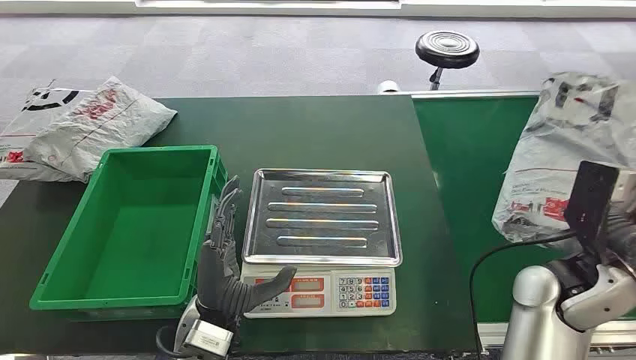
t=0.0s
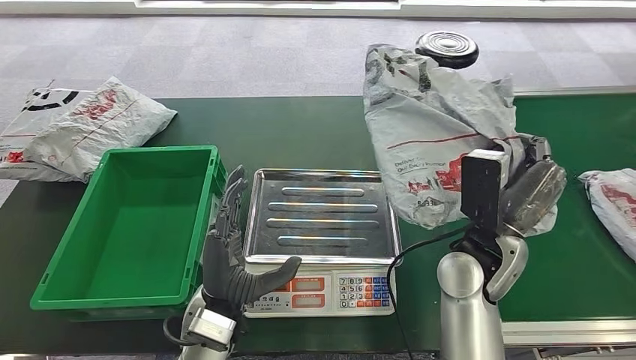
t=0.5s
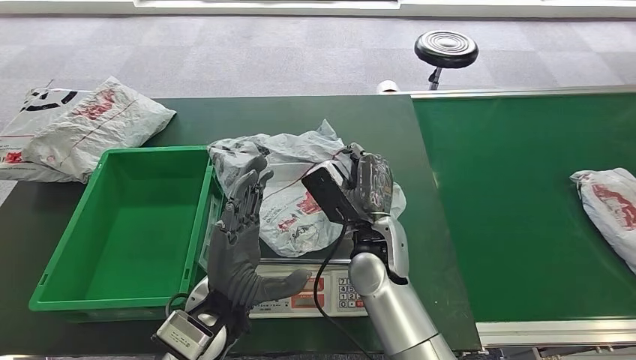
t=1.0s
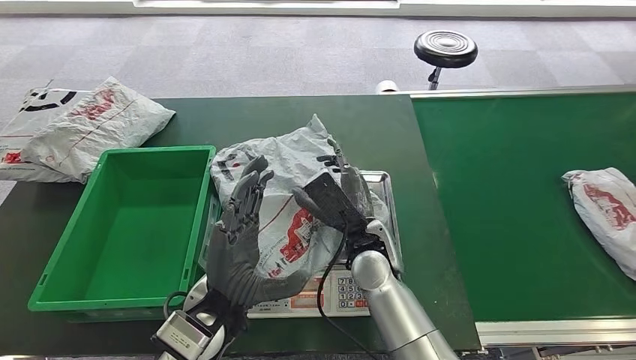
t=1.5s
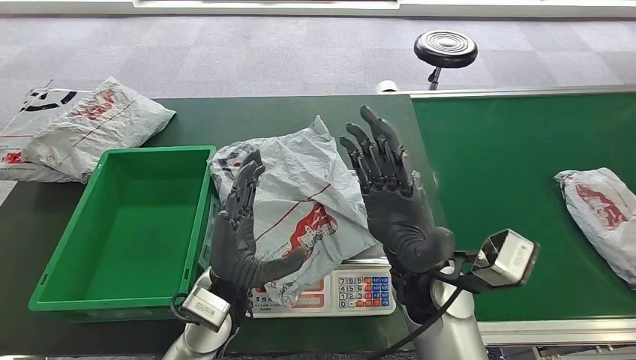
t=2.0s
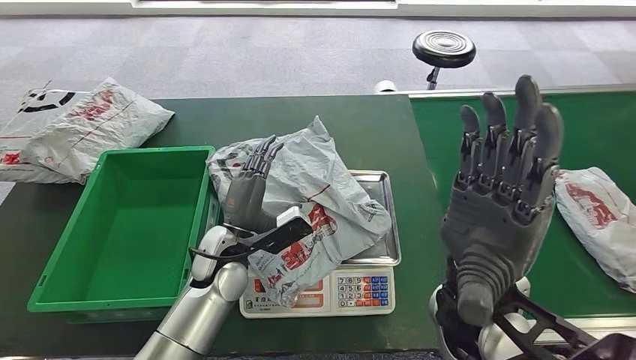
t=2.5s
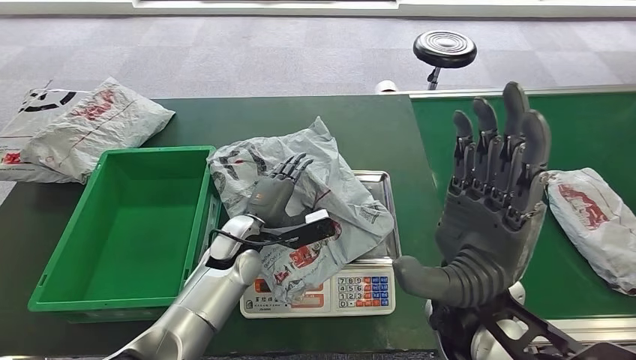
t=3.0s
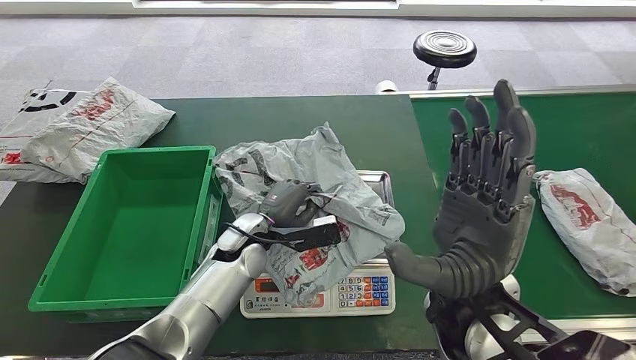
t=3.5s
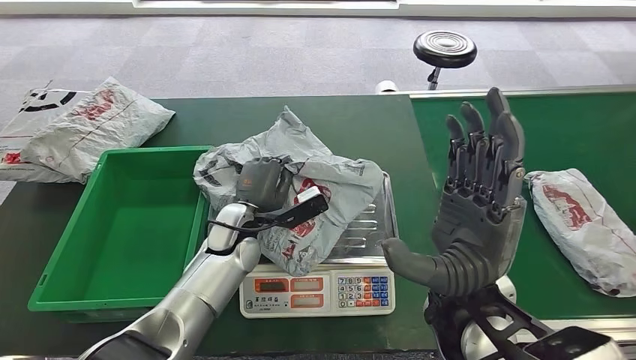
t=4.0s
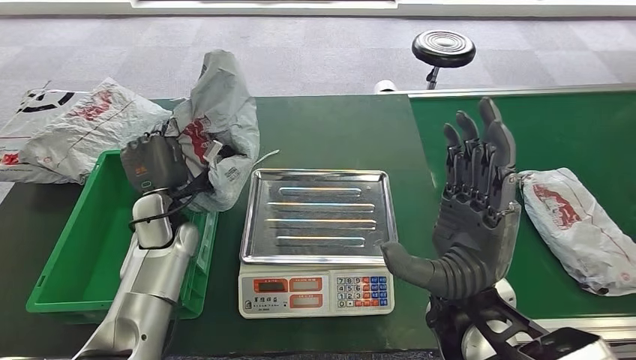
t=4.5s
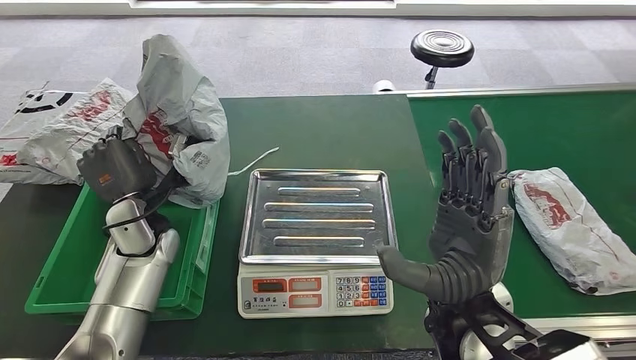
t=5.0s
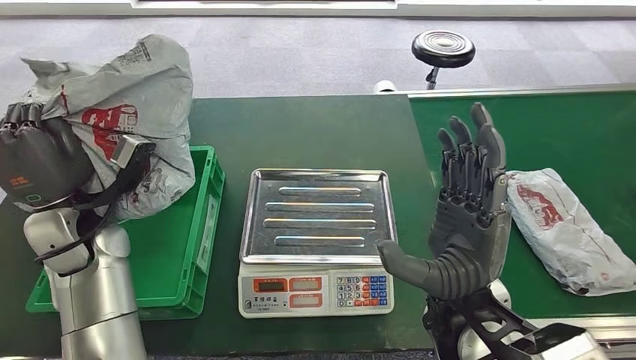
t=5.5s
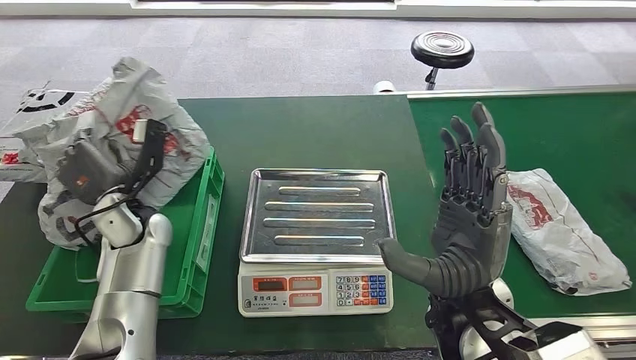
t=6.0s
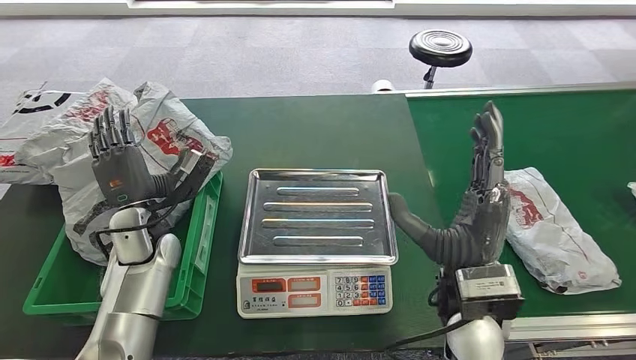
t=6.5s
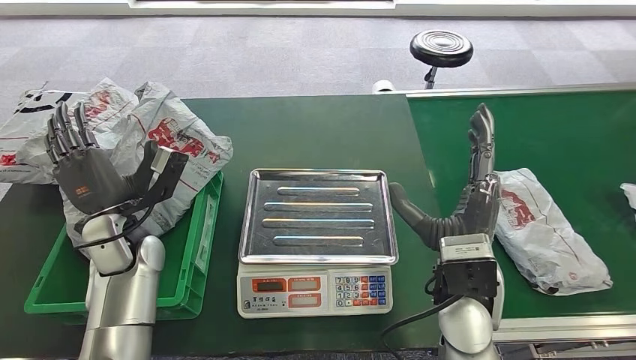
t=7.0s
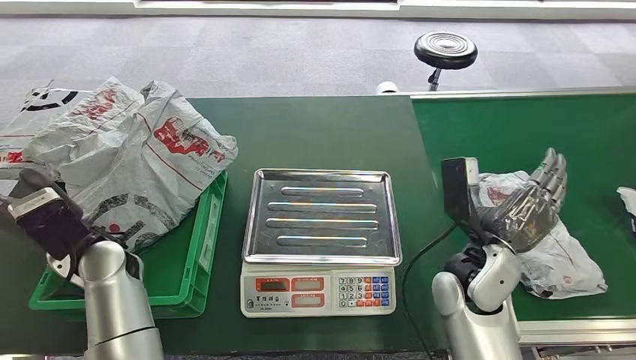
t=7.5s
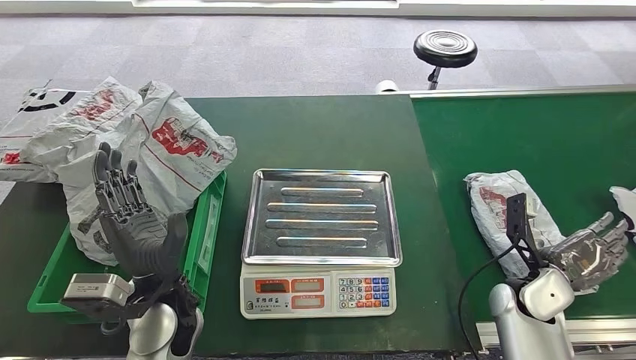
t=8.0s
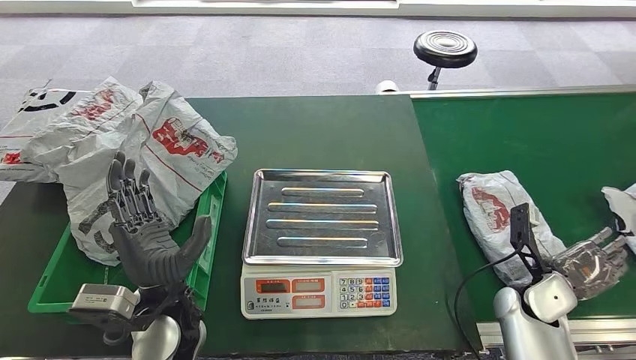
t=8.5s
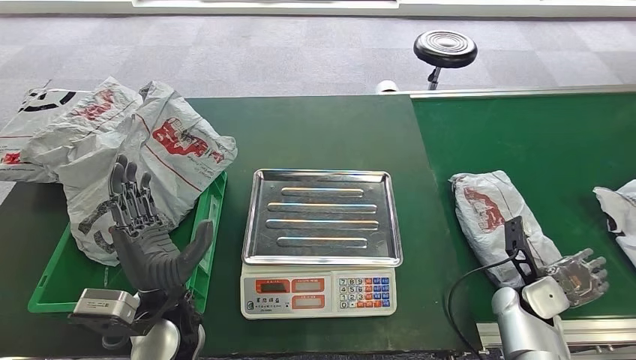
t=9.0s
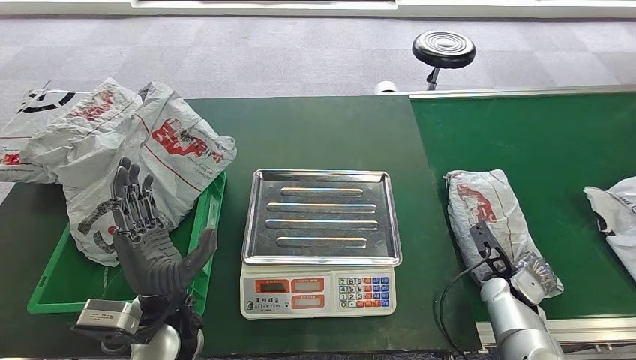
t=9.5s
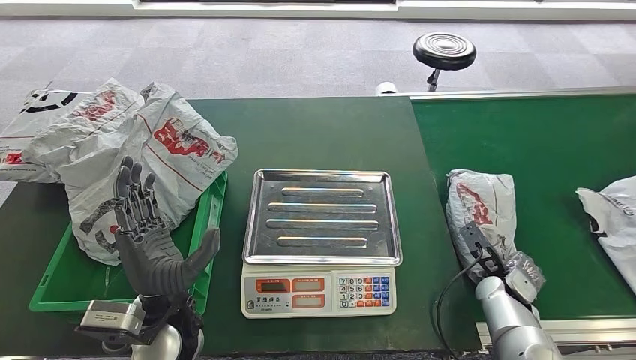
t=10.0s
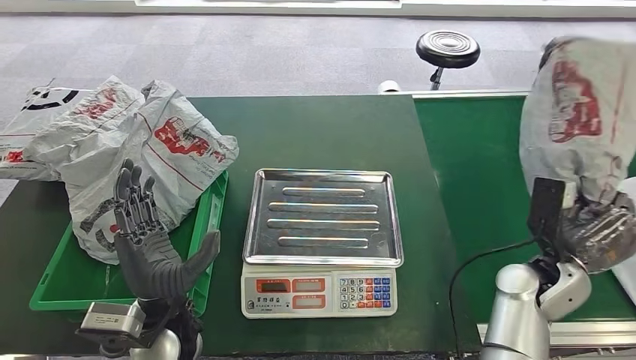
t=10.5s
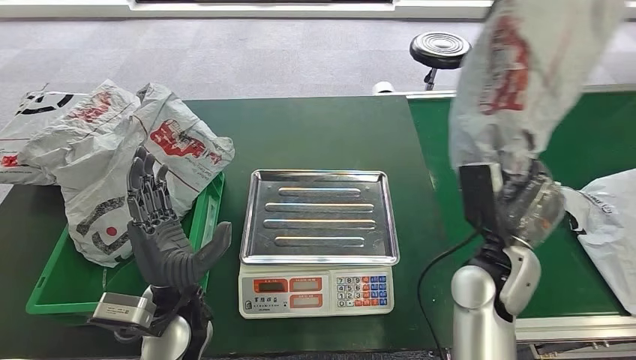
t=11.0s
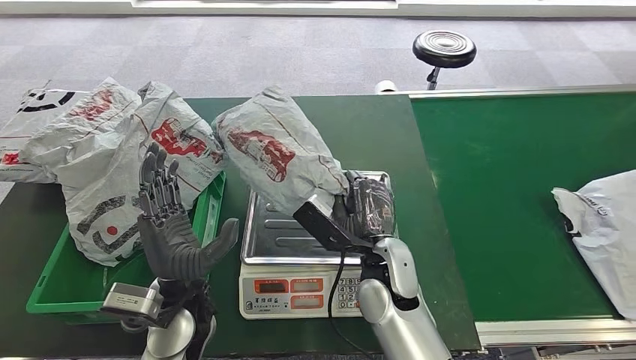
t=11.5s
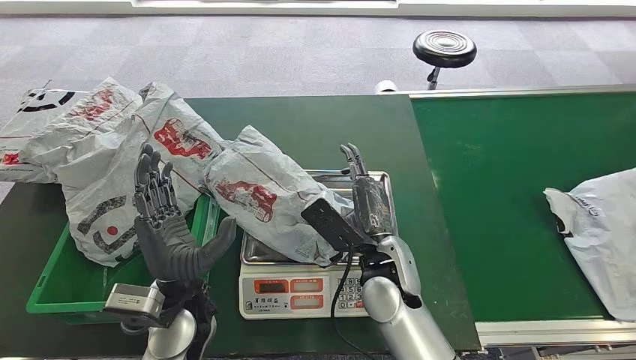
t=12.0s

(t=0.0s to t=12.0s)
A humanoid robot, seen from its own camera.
Step, t=0.5s - t=1.5s: Place the parcel onto the inbound machine.
Step, t=3.5s - t=4.5s: Pick up the parcel from the inbound machine.
Step, t=5.0s - t=7.5s: Put the parcel inside the courier box.
Step, t=10.5s - t=11.0s: Pick up the parcel from the conveyor belt.

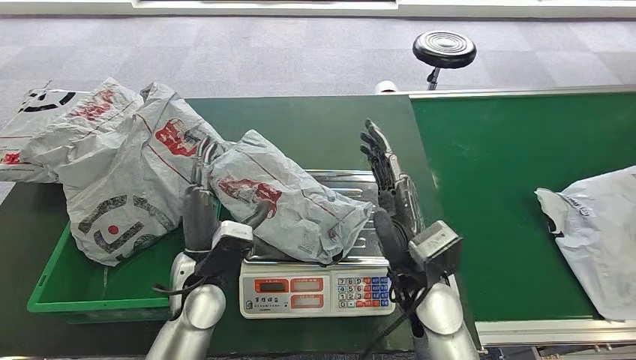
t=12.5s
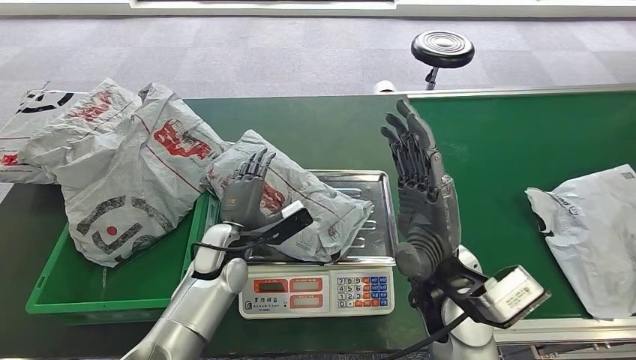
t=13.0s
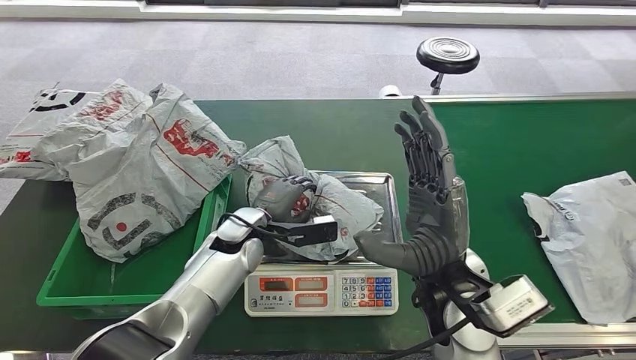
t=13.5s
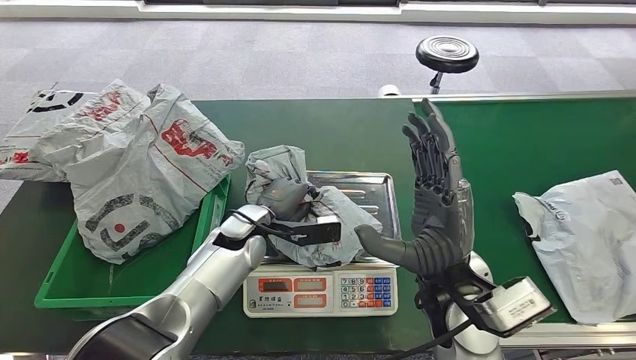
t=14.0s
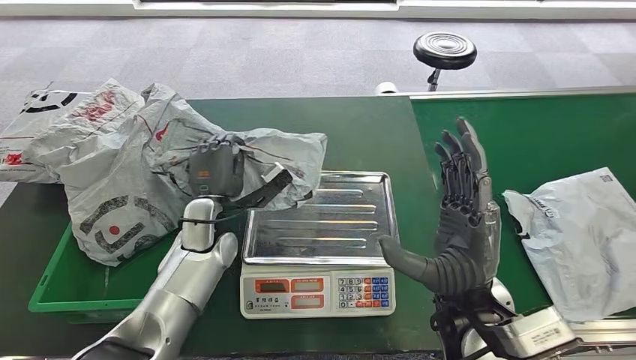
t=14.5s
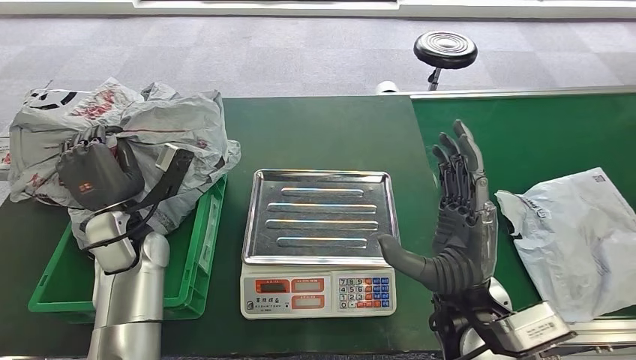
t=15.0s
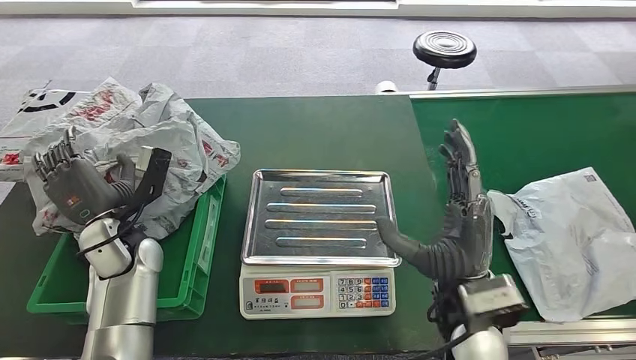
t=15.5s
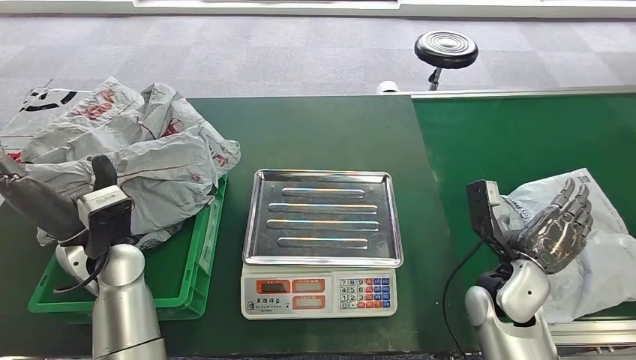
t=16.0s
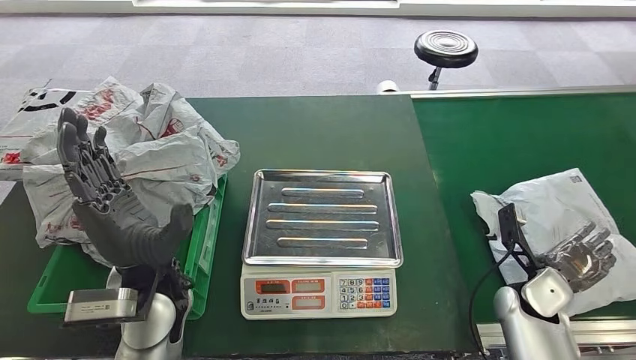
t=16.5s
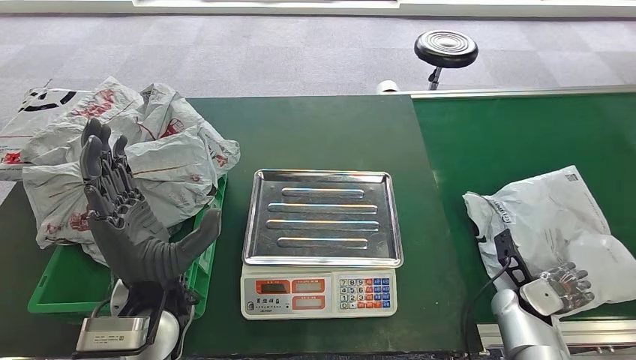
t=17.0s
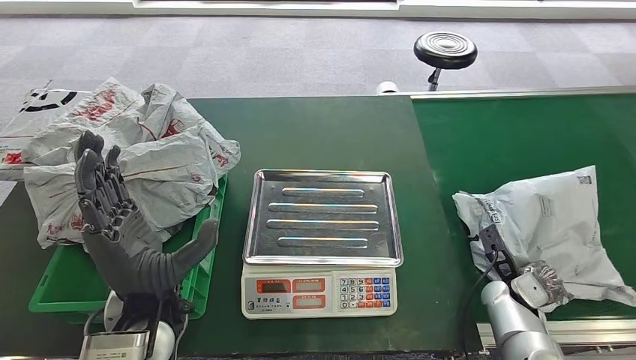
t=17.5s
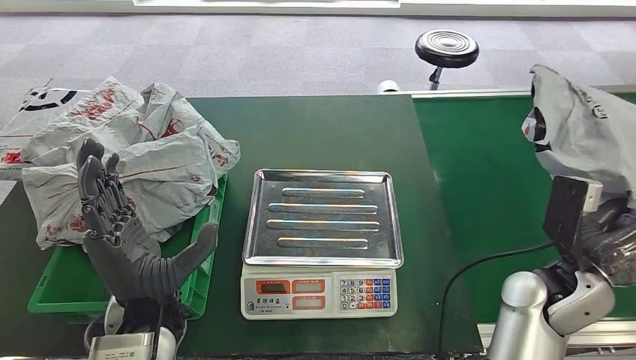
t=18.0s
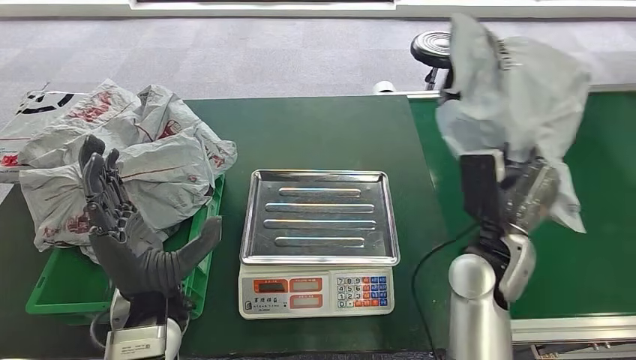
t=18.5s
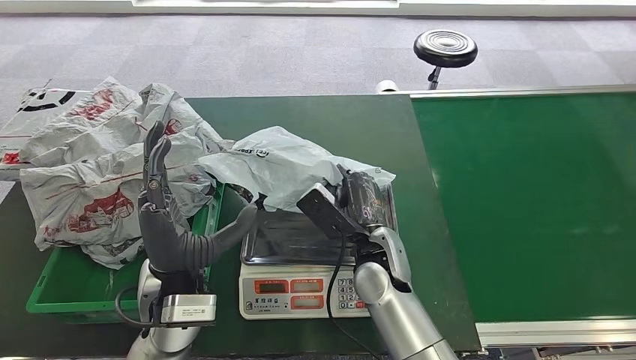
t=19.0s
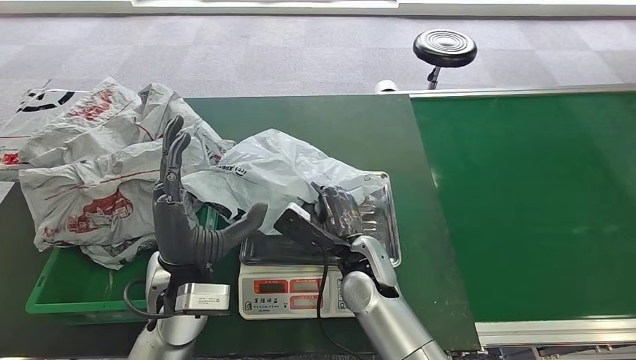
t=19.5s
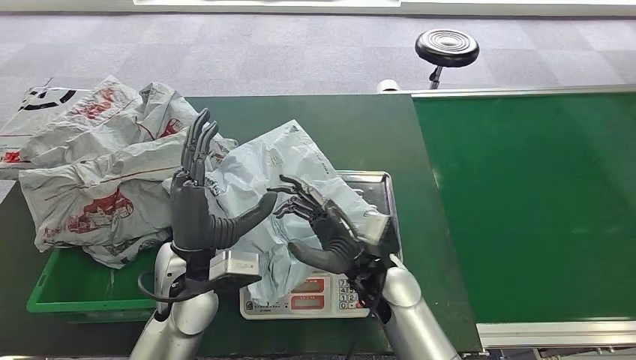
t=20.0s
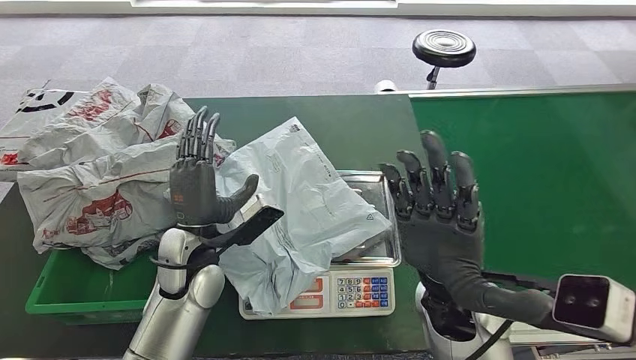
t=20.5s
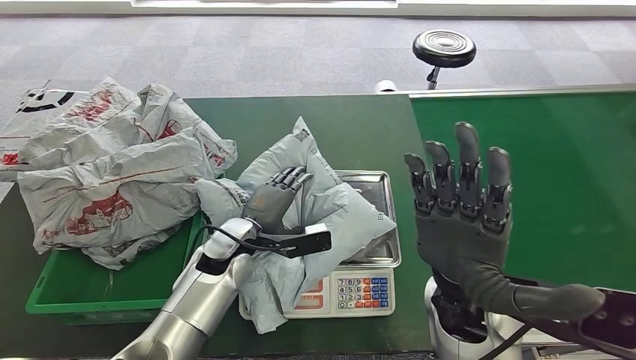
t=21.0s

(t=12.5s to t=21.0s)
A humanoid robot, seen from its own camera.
Step, t=14.0s - t=14.5s: Pick up the parcel from the inbound machine.
Step, t=15.0s - t=16.5s: Place the parcel into the delivery box.
Step, t=17.5s - t=18.0s: Pick up the parcel from the conveyor belt.
Step, t=18.5s - t=20.0s: Place the parcel onto the inbound machine.
